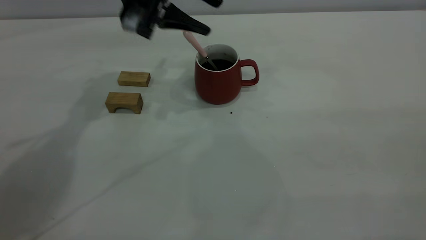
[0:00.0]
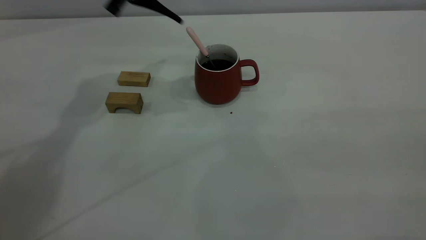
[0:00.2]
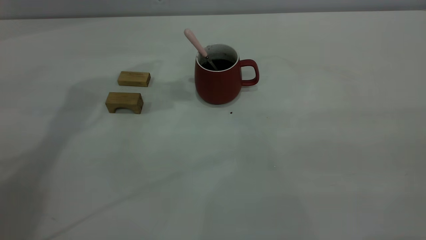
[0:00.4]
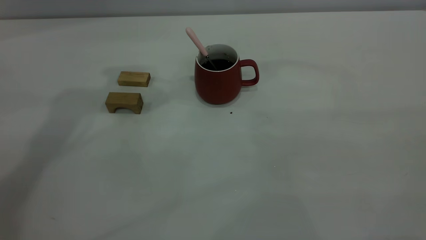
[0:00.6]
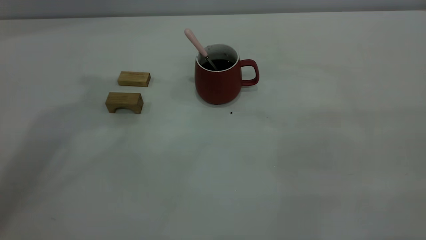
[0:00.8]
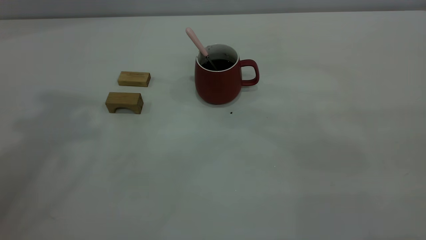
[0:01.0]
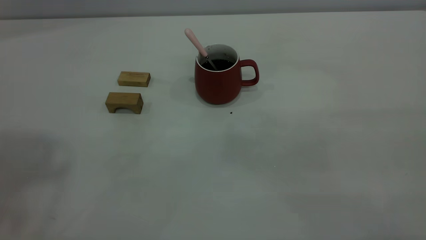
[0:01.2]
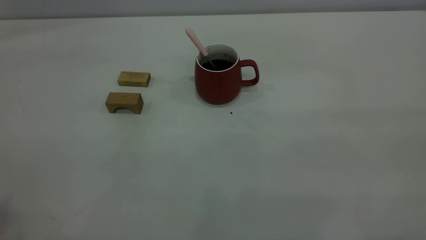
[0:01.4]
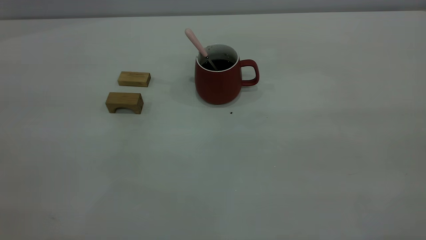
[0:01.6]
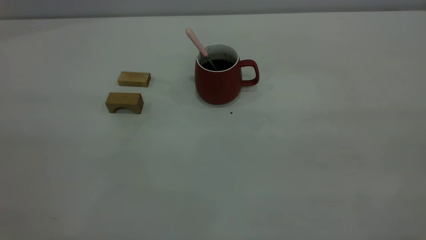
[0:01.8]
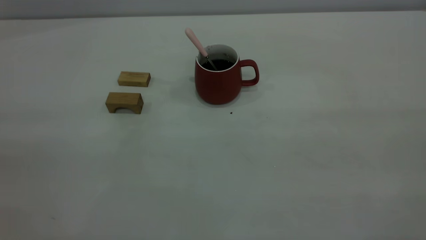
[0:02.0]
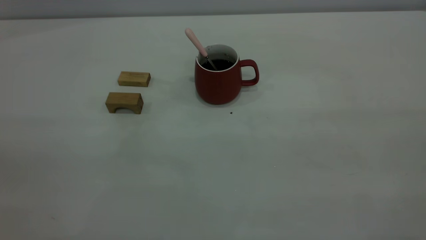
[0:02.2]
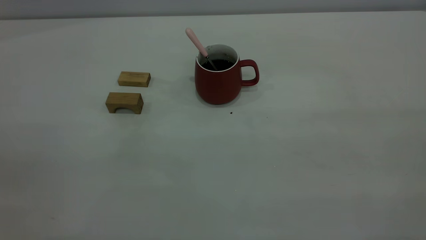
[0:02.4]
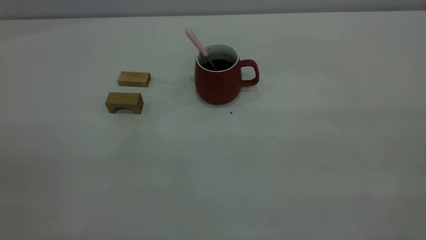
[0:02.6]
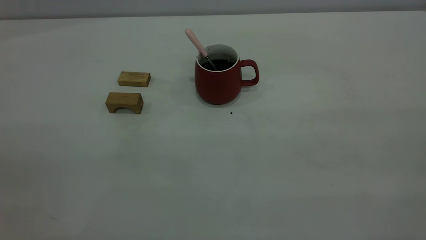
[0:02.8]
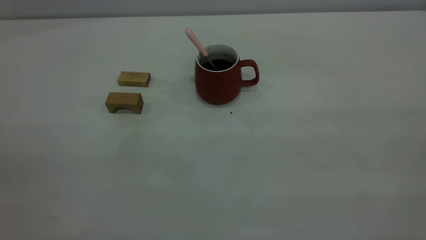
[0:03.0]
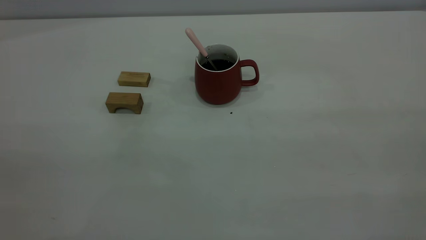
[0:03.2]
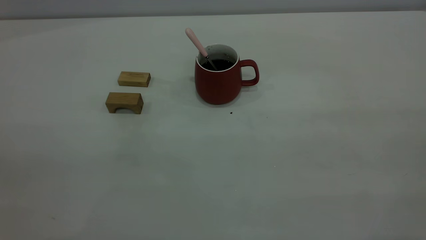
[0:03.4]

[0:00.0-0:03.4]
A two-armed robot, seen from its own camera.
0:00.0 to 0:01.6: The left gripper shifts roughly 50 cm backward, upward and to the left.
